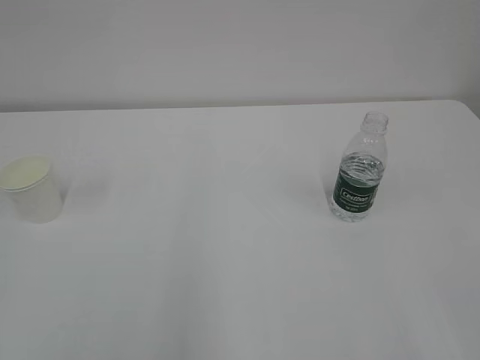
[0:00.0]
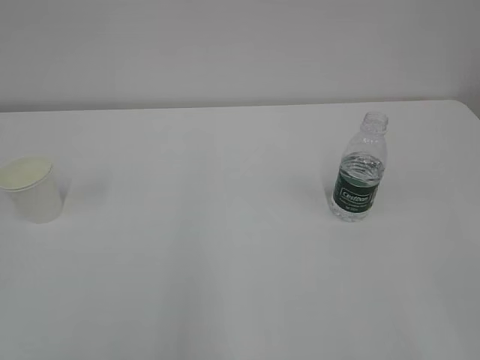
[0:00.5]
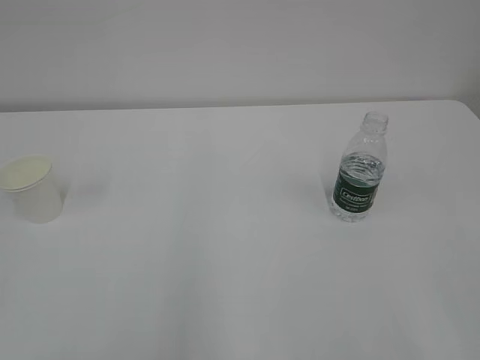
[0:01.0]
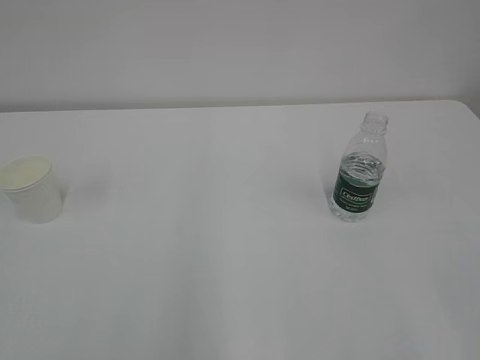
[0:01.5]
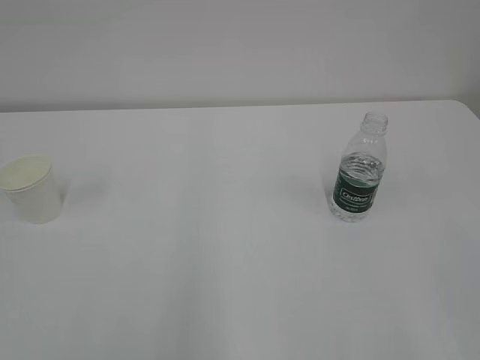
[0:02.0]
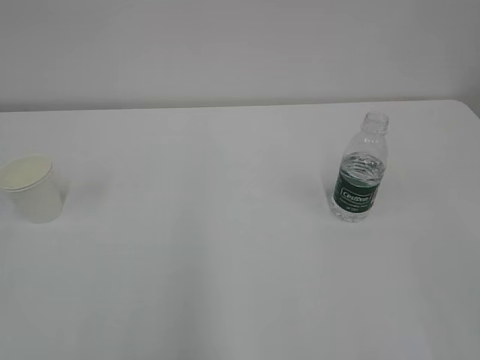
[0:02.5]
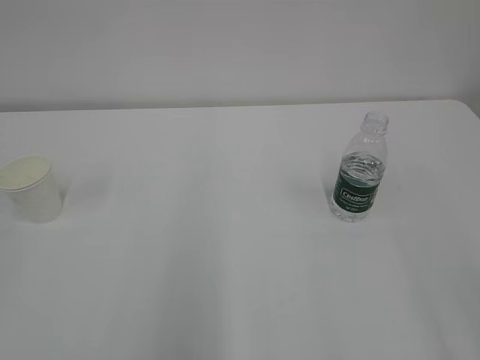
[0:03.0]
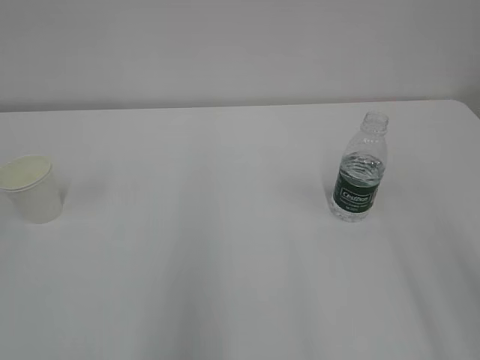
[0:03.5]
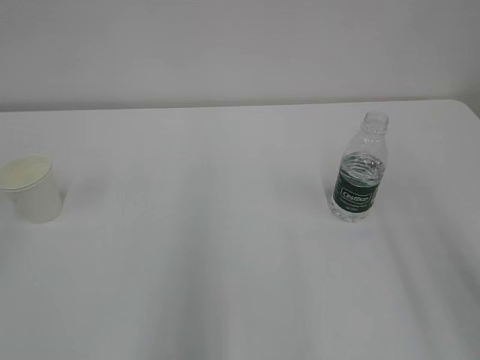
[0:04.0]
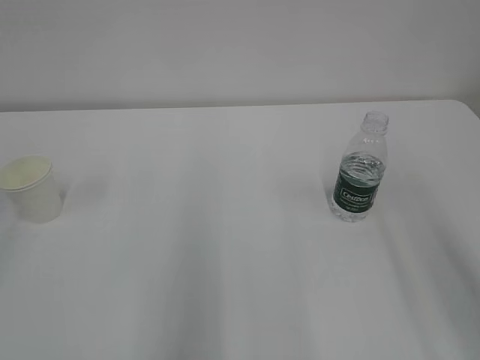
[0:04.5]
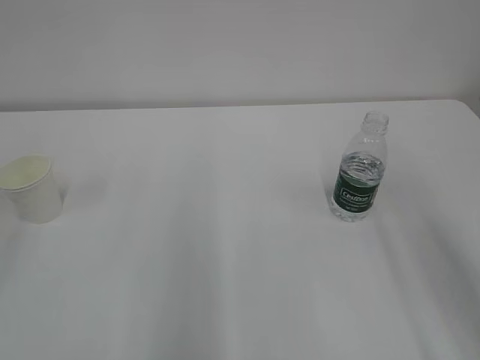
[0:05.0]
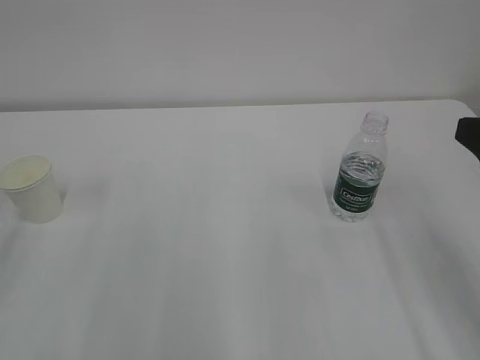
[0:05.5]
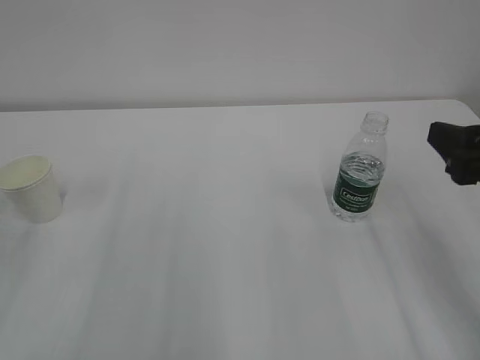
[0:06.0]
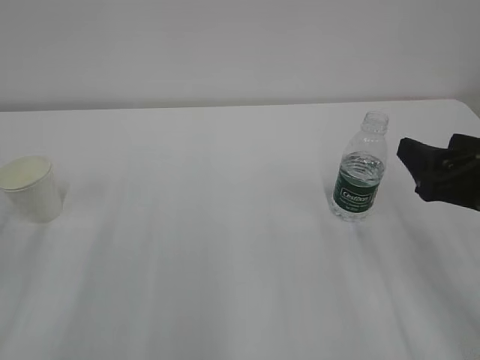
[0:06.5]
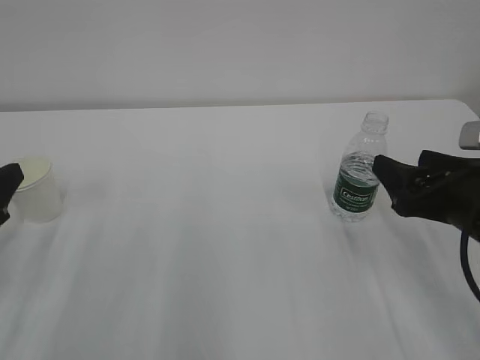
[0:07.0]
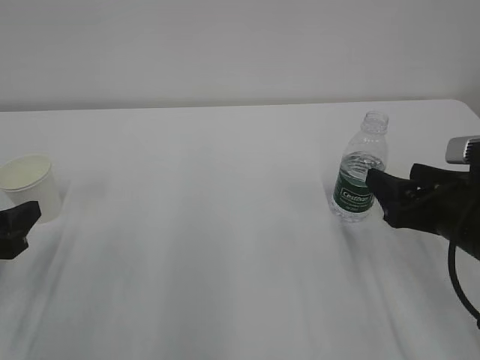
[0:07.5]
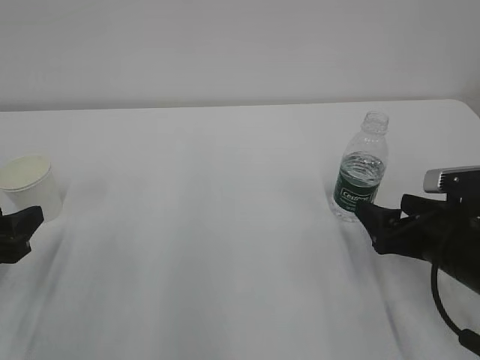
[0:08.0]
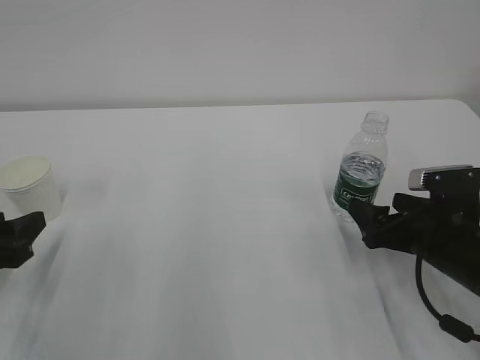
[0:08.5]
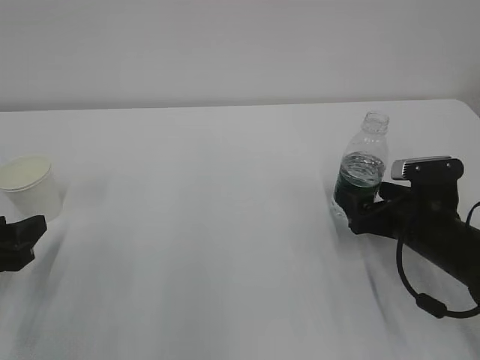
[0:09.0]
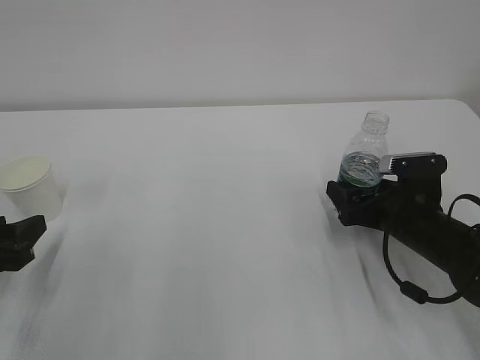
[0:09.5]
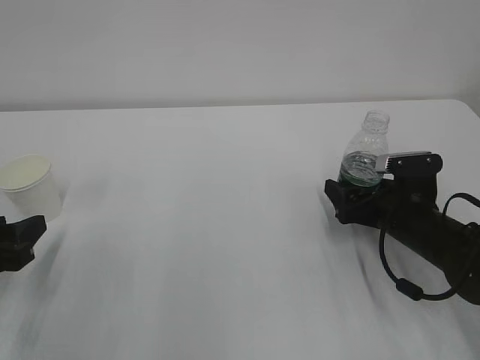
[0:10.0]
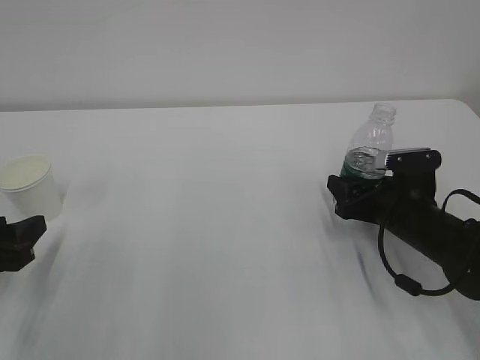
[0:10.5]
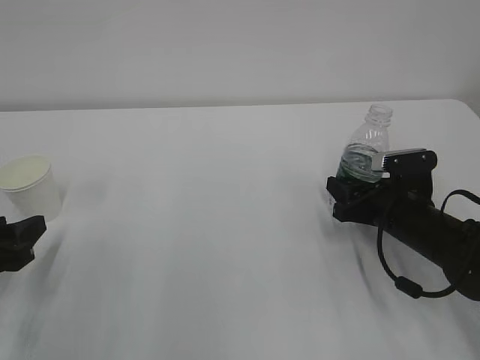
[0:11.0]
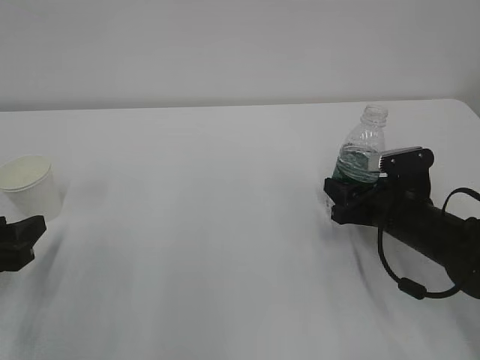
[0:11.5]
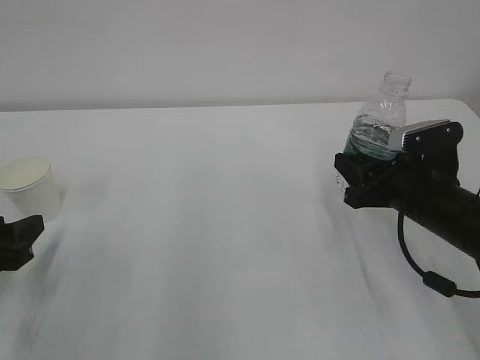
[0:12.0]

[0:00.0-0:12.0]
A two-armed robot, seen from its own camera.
4.0 to 6.0 s: The right gripper heads forward and downward, covering some 15 cm.
6.0 to 8.0 s: The grippers both shift downward by roughly 10 cm.
8.0 to 10.0 s: The right gripper goes roughly 10 cm forward.
10.0 to 12.0 s: The right gripper is displaced upward by about 5 cm, and closes.

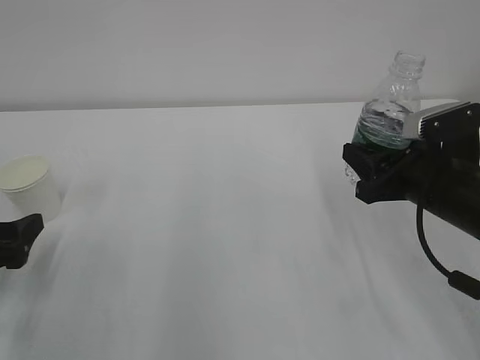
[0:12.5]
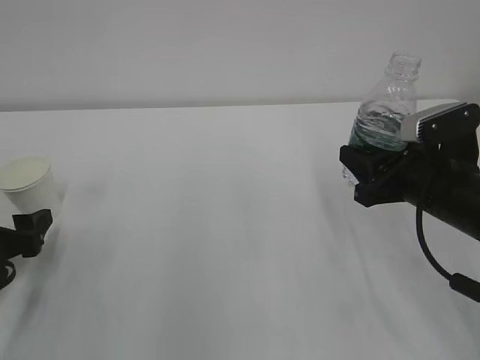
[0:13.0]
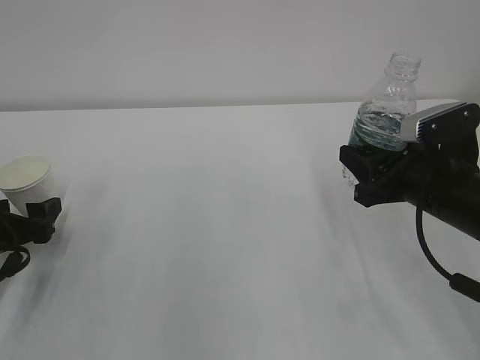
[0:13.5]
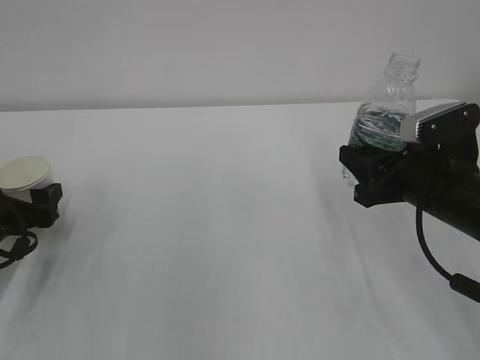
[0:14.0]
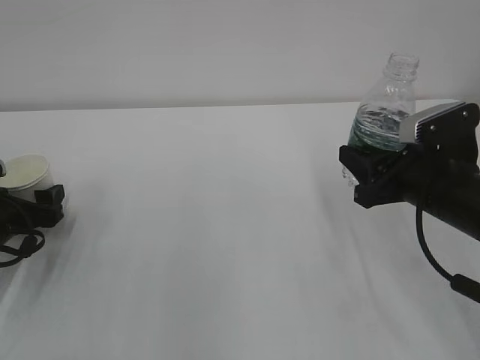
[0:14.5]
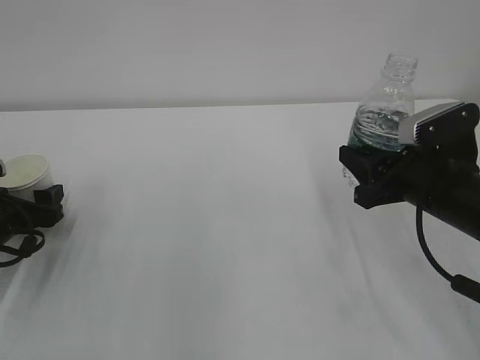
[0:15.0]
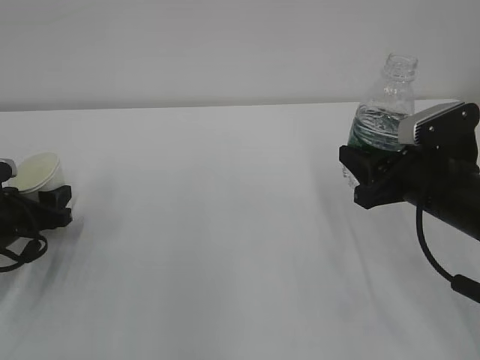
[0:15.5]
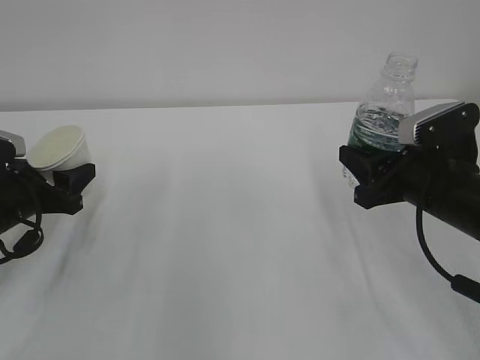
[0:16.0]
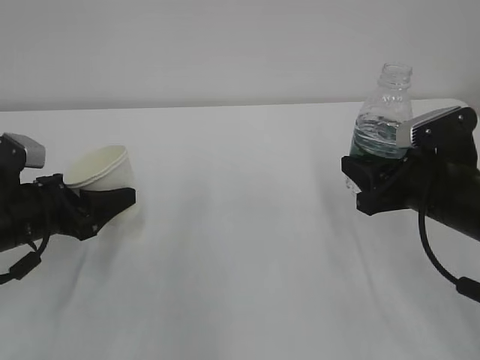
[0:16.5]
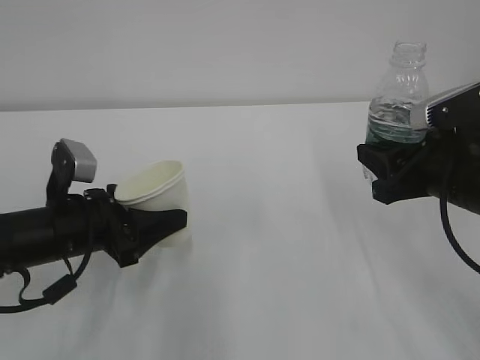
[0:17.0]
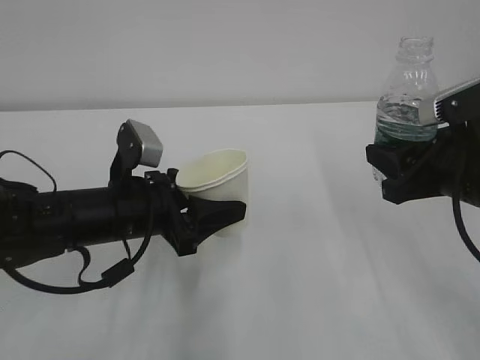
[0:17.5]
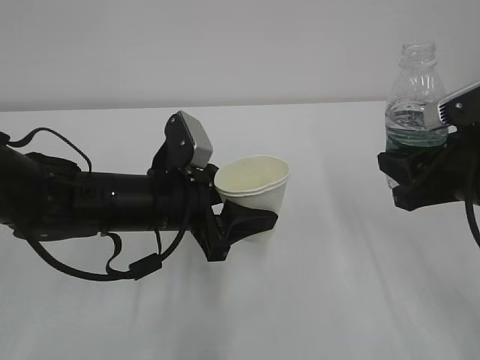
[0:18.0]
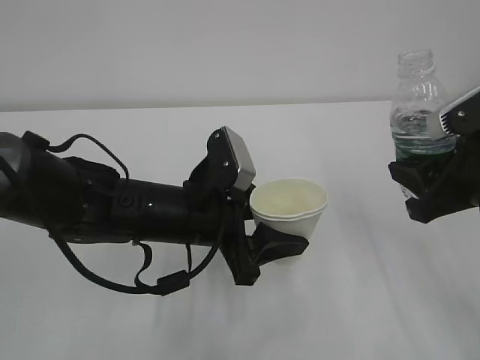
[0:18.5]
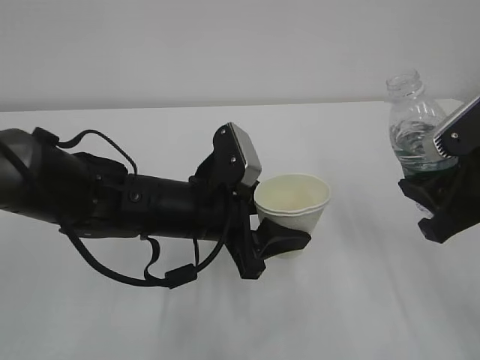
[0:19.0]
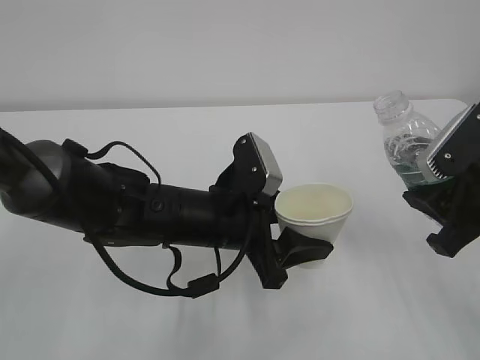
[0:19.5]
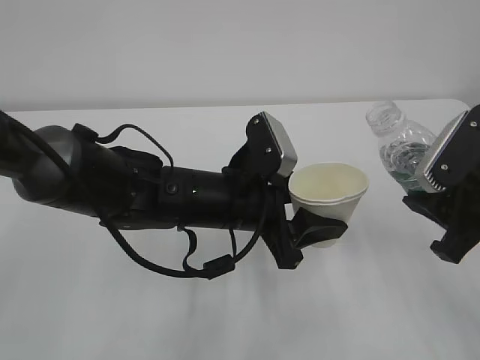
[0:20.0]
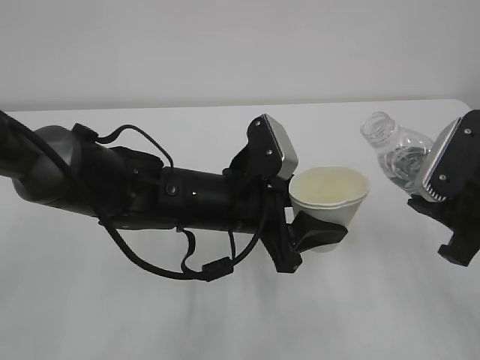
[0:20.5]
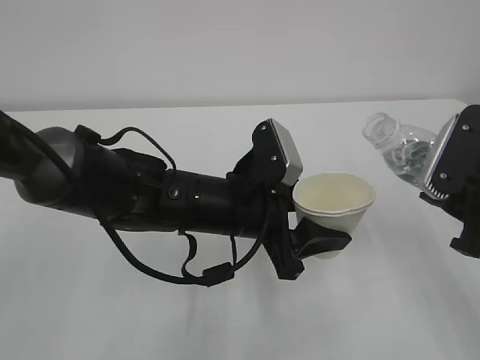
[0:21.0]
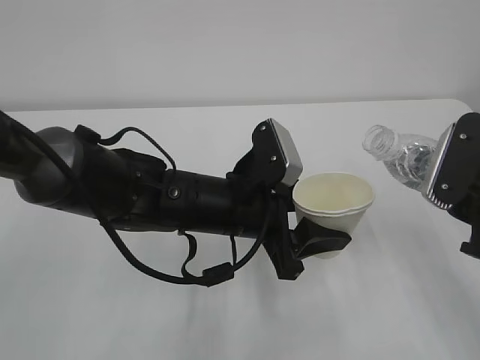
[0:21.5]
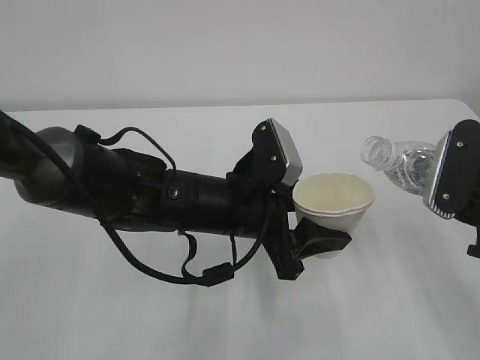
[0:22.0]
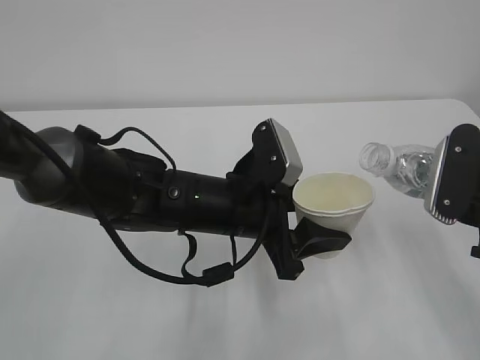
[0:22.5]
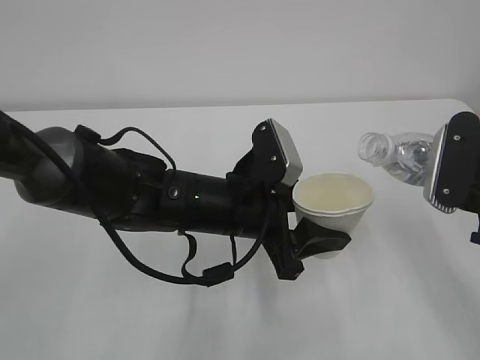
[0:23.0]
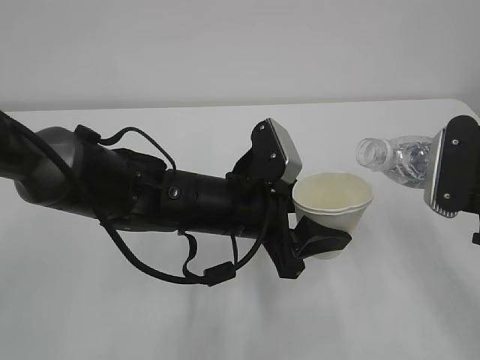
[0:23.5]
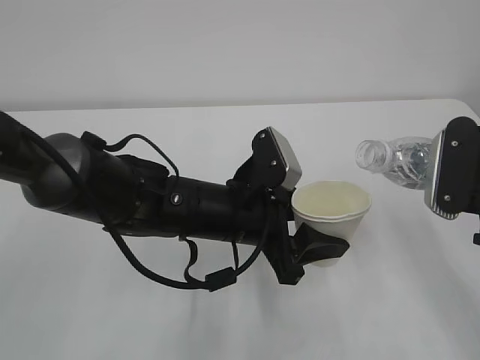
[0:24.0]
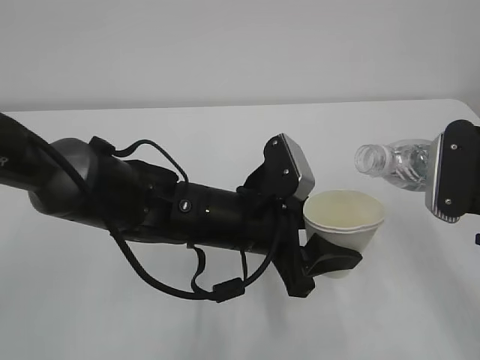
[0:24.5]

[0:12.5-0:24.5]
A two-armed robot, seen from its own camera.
12.5 to 14.5 s: The left gripper heads forward, covering about 10 cm.
14.5 to 16.5 s: The left gripper shifts about 5 cm to the right, and closes up.
16.5 to 18.5 s: The right gripper goes about 5 cm upward. The left gripper goes roughly 20 cm to the right.
22.5 to 24.5 s: The grippers make only small movements.

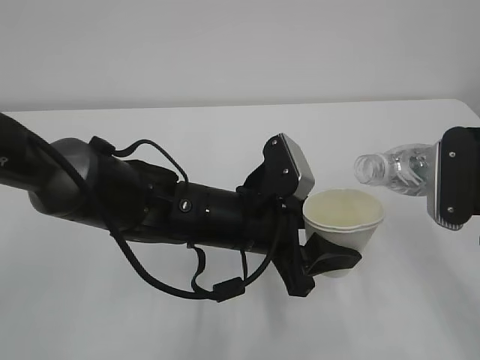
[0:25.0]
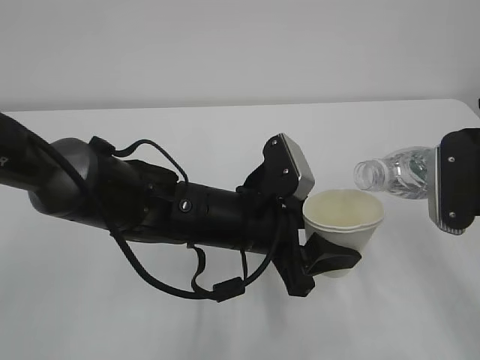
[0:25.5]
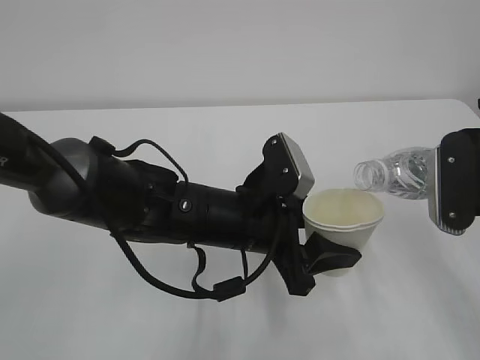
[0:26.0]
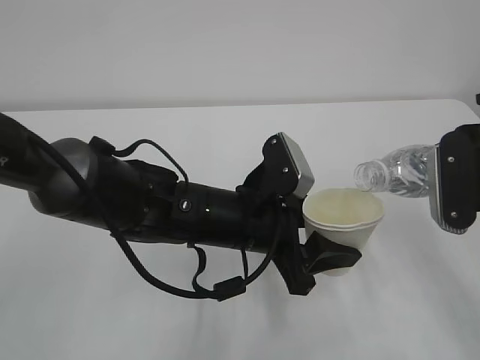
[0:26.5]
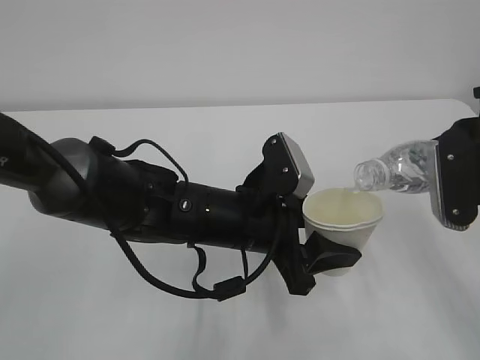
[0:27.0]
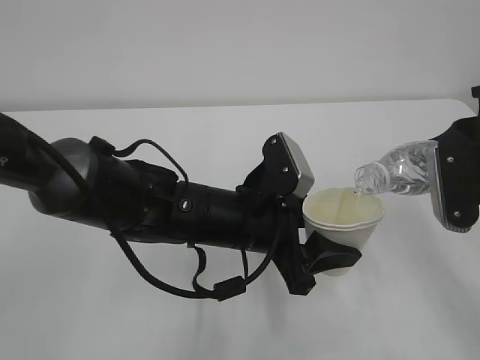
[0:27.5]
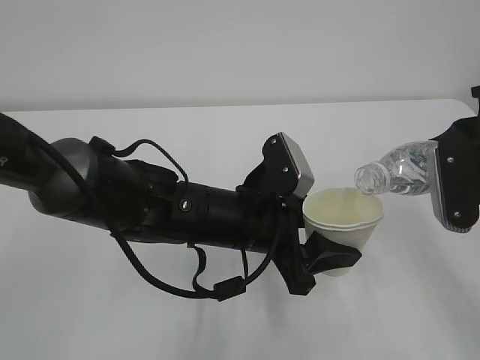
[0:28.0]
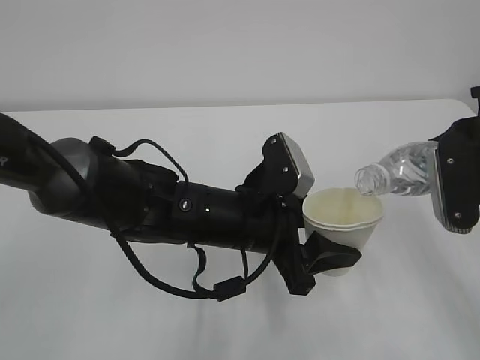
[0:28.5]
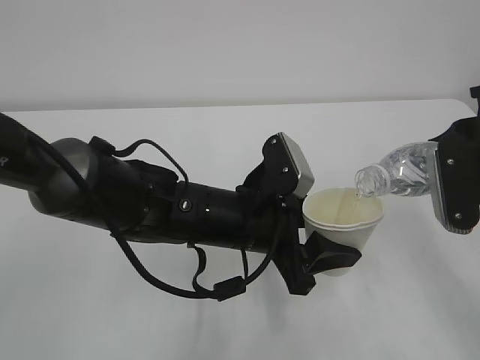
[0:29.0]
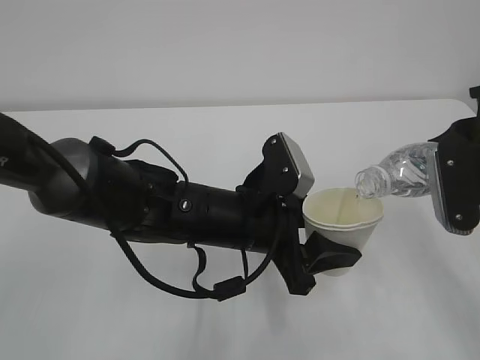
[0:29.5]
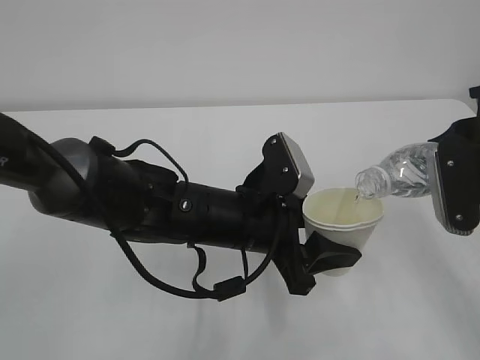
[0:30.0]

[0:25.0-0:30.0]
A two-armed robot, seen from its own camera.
25.0 to 27.5 s: The grippers move only a little.
27.5 to 30.0 s: The two grippers keep their place.
